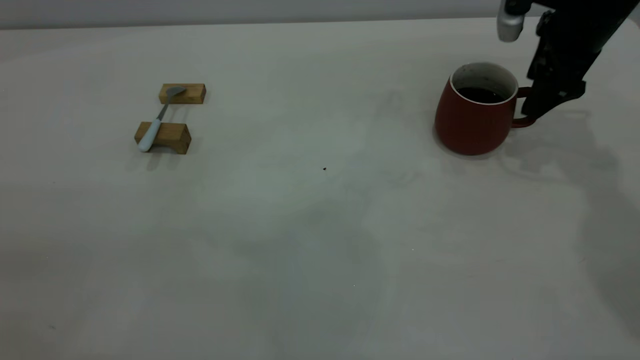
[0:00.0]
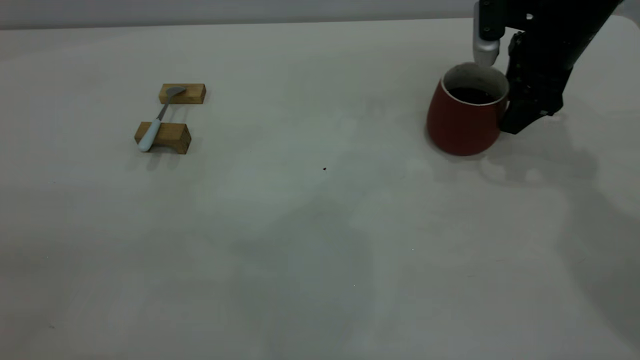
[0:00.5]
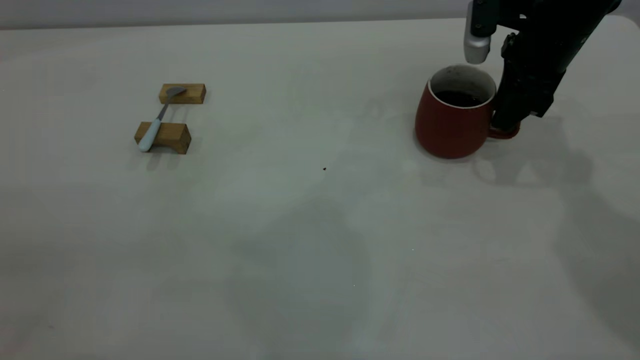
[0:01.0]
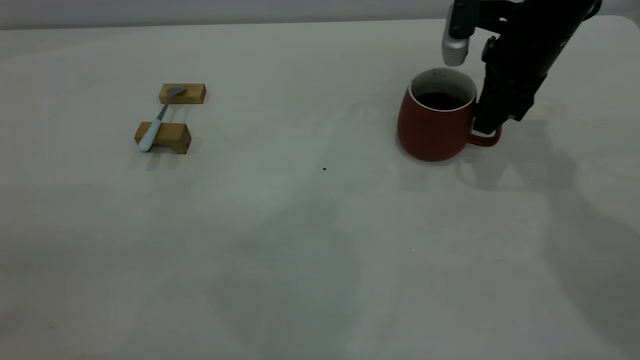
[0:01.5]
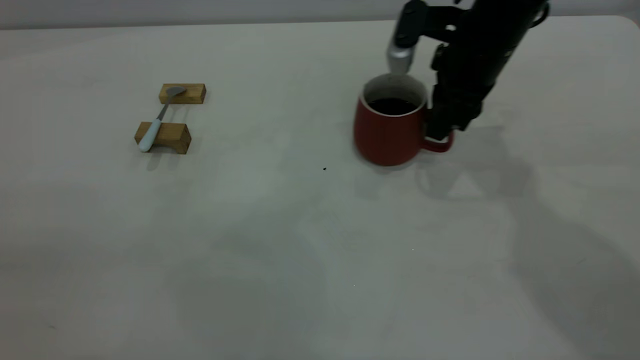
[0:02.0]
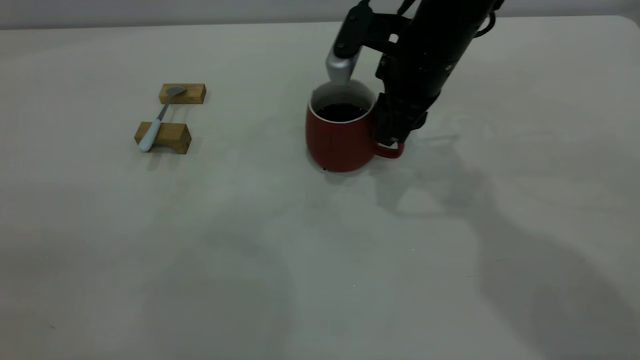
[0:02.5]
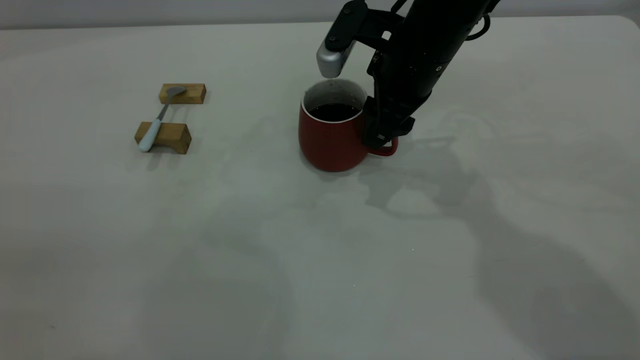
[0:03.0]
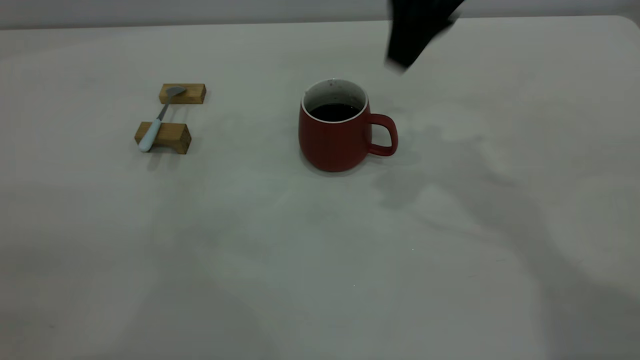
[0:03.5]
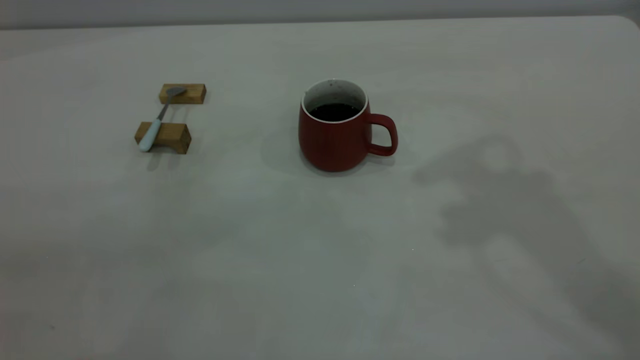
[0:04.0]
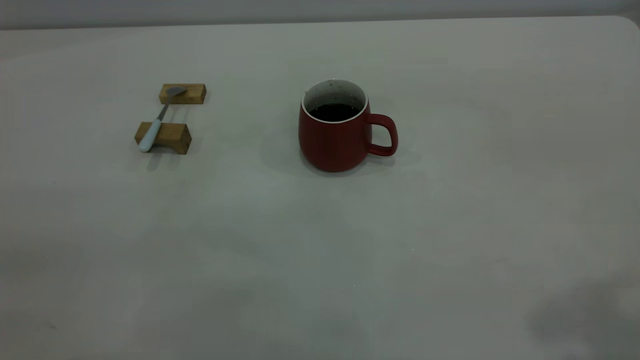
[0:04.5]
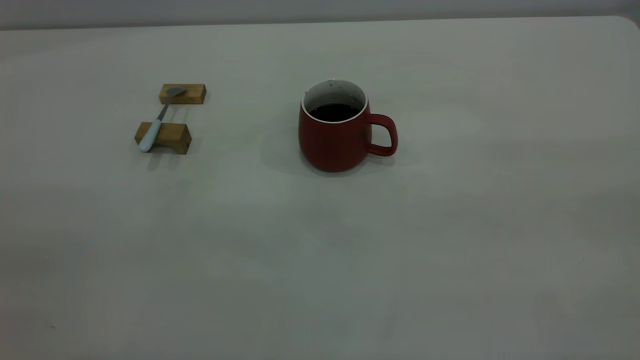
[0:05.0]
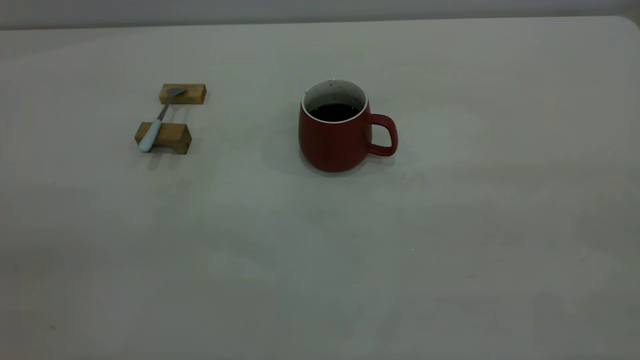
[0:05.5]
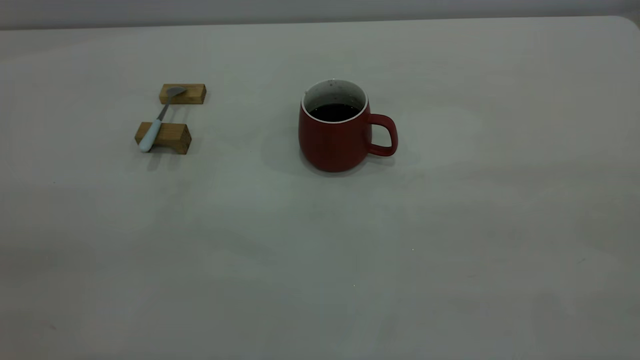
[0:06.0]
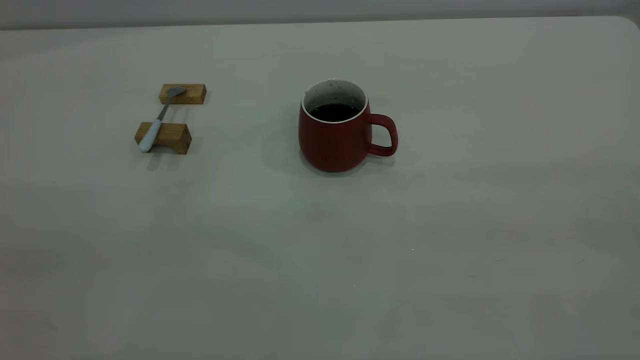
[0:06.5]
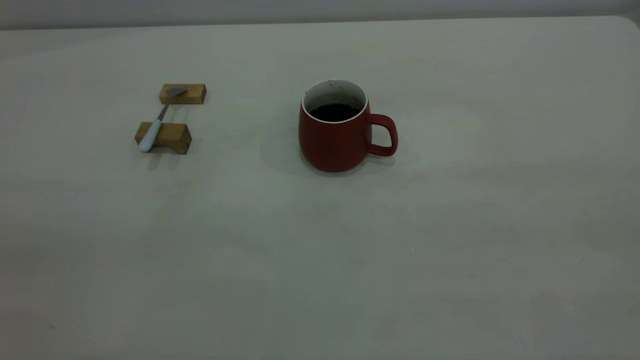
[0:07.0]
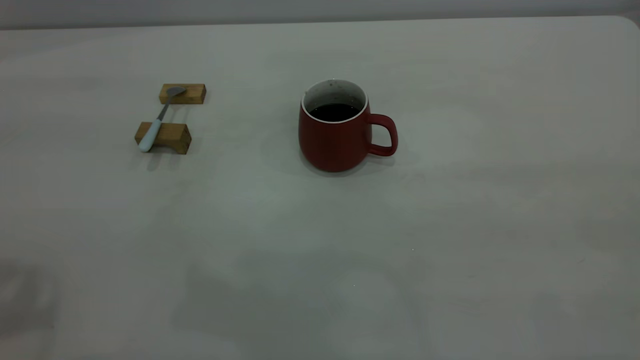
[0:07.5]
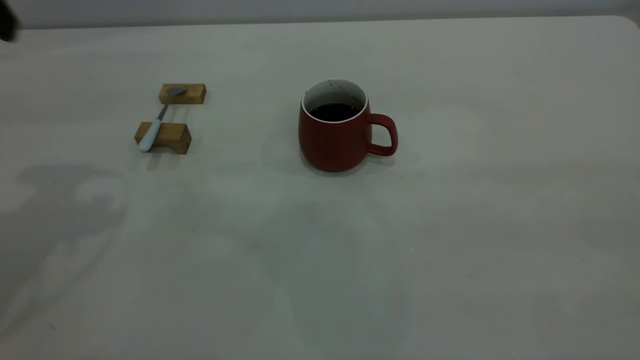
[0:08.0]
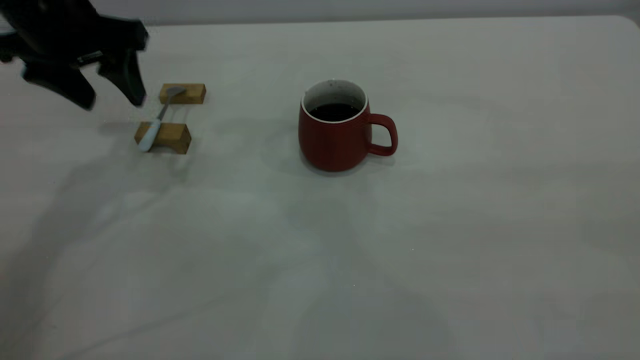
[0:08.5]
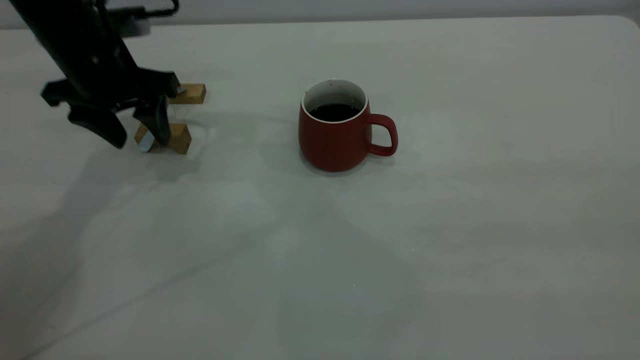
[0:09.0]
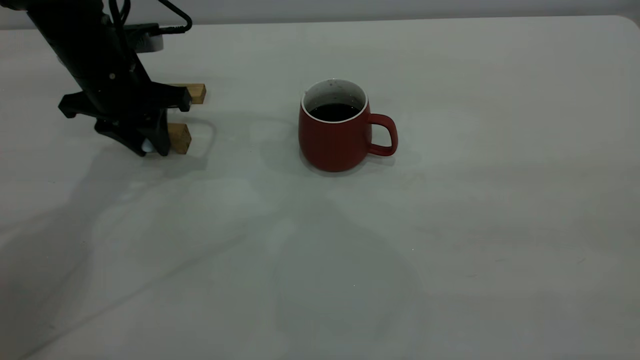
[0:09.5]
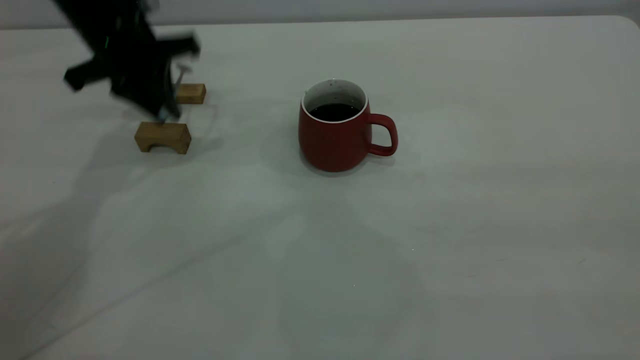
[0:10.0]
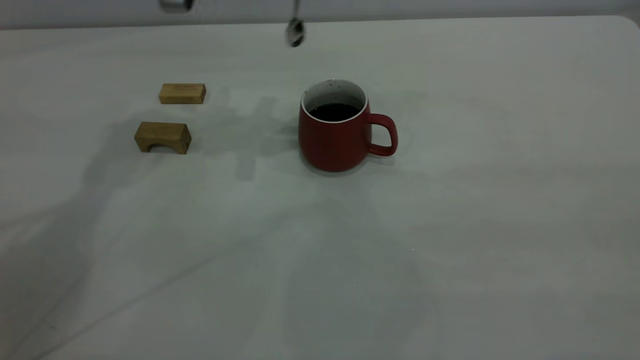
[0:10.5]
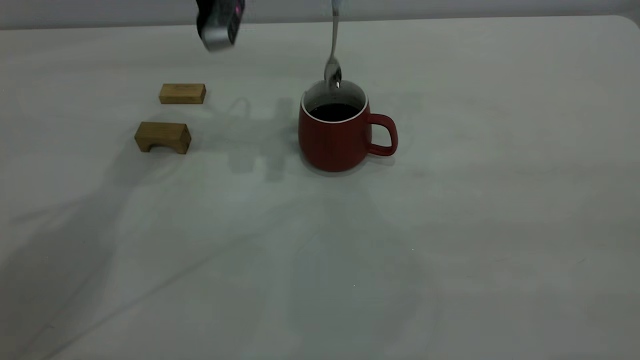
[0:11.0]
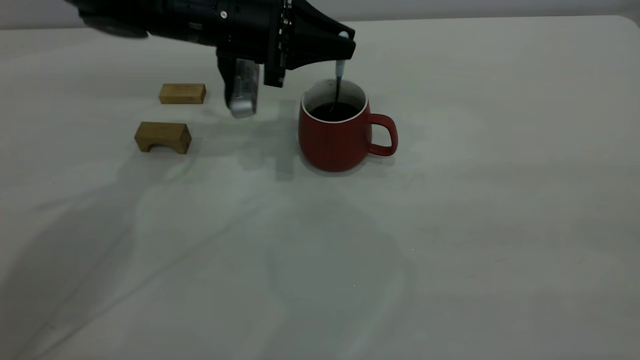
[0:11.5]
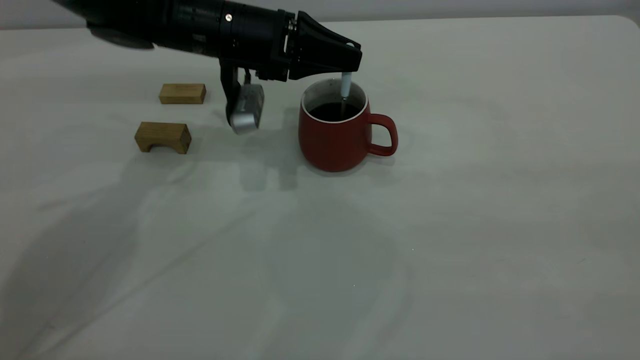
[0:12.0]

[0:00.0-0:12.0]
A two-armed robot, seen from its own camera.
Step, 0:00.0 to 0:03.0: Move the cup with coffee to the center of view.
Step, 0:03.5 to 0:10.0: Pick up the spoon.
0:00.0 to 0:02.0: The right gripper is displaced to the left by approximately 10 cm, and closes up.
0:02.0 to 0:04.0: The right gripper heads upward and backward, covering some 35 cm, and opens.
0:08.0 to 0:10.0: The left gripper travels forward, downward and to the right by about 20 cm, and closes its fingers.
0:10.0 to 0:12.0: The left gripper shifts about 10 cm to the right and downward.

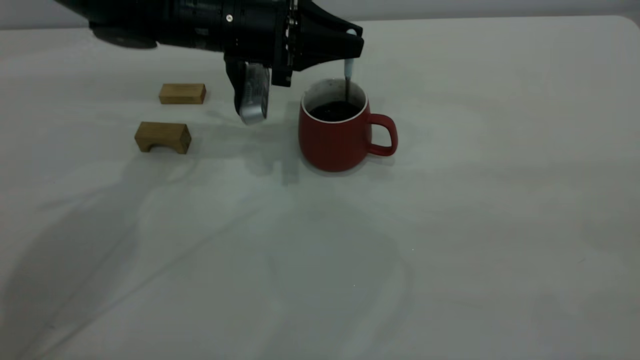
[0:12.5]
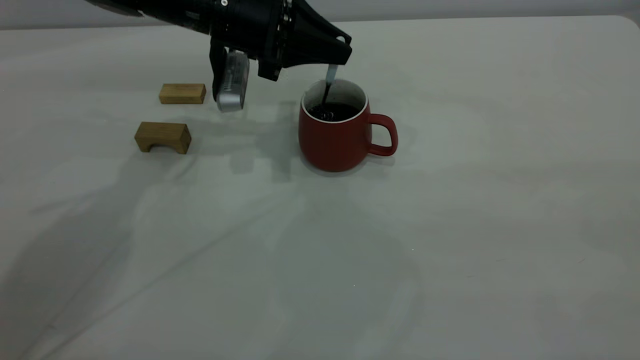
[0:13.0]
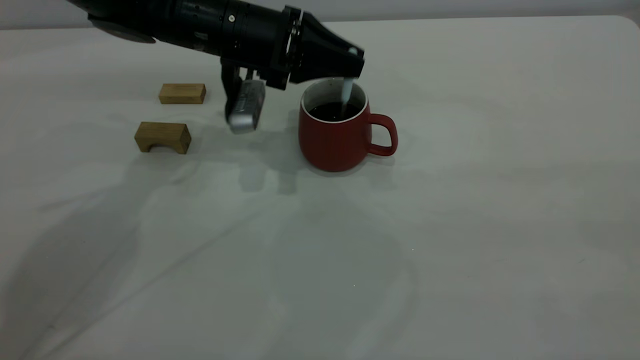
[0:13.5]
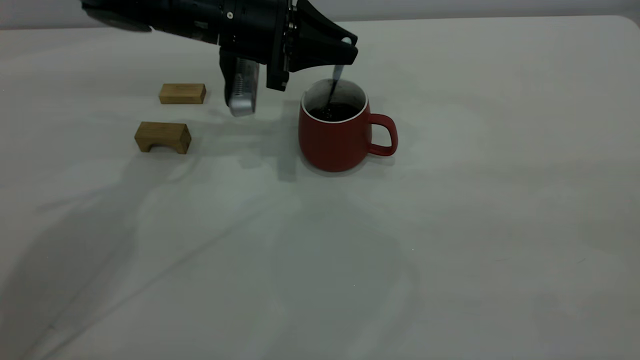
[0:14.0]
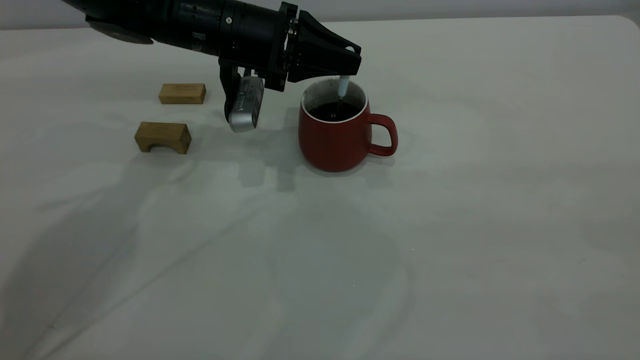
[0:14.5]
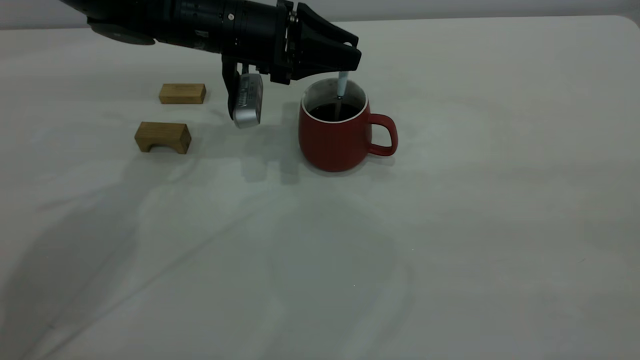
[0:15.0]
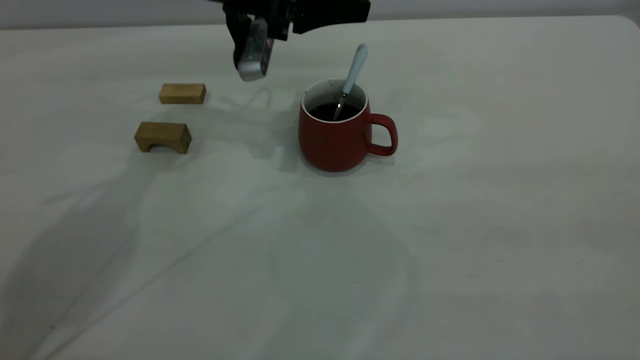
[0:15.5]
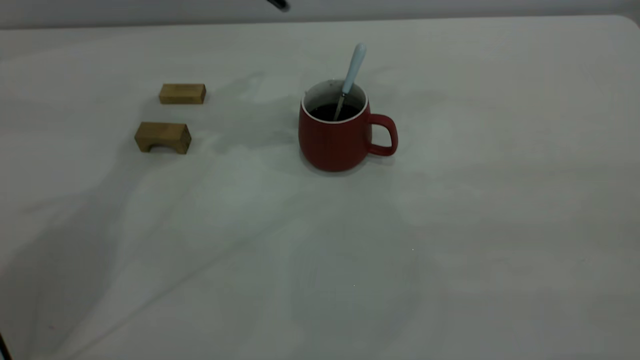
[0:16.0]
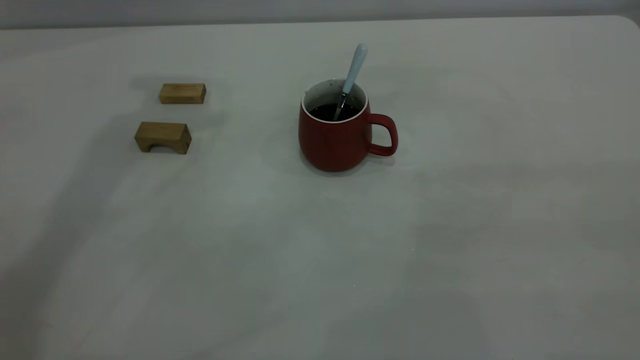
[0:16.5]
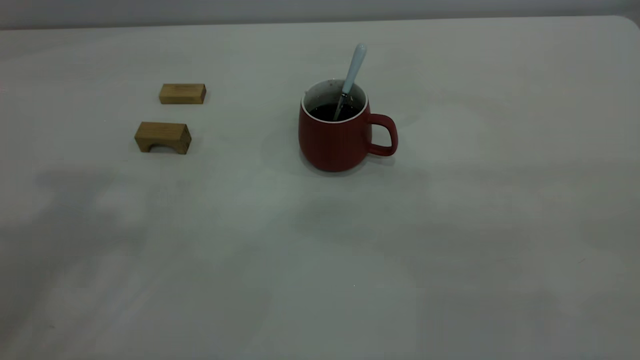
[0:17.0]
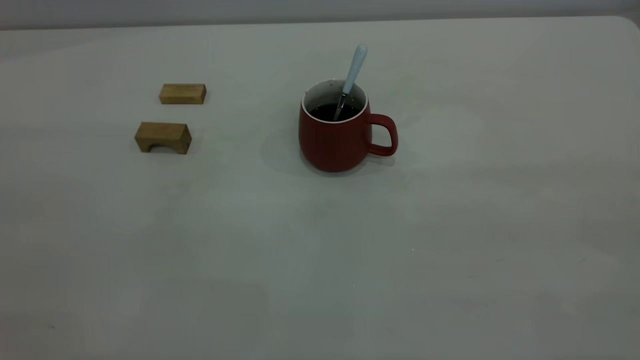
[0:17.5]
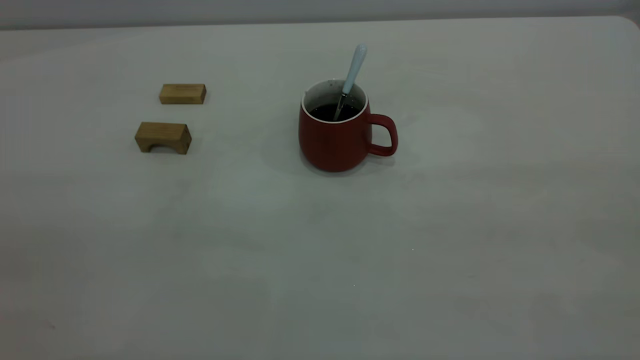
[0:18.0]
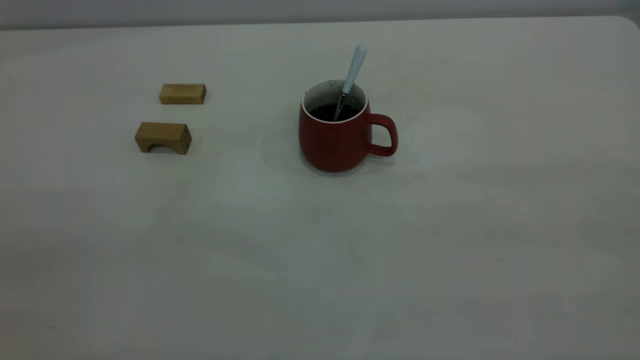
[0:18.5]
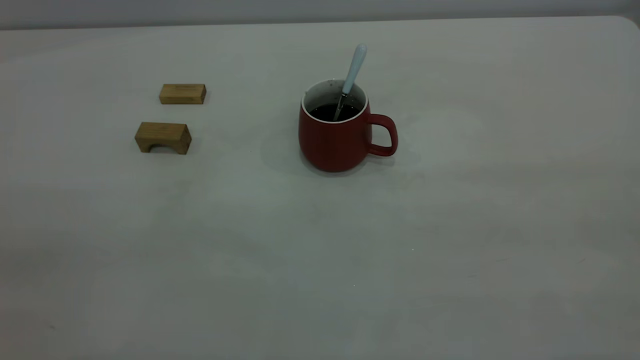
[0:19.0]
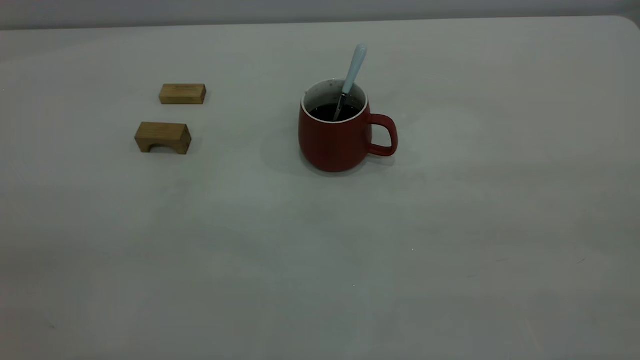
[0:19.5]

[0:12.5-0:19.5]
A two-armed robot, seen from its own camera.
Step, 0:12.5 to 0:15.0: Stir the coffee in the cup.
0:12.5 to 0:14.5: The grippers make only small movements.
0:14.5 to 0:16.0: The left gripper is displaced upward by about 15 cm, and opens its fingers.
